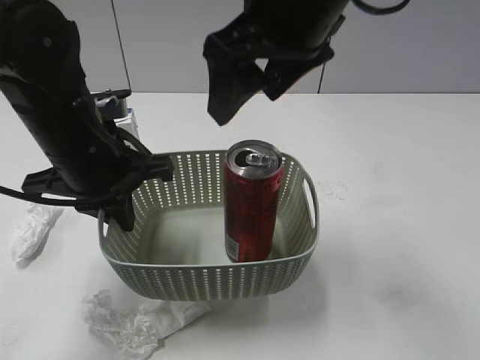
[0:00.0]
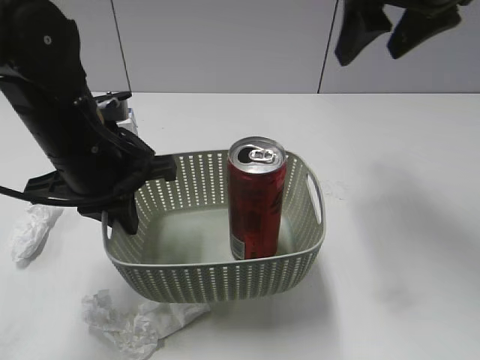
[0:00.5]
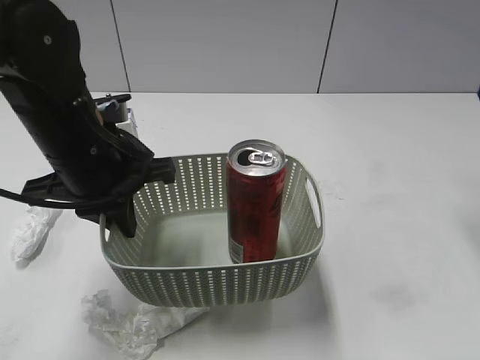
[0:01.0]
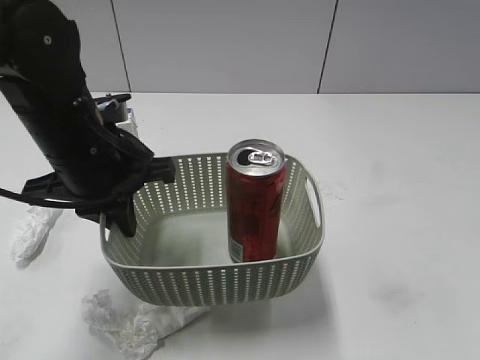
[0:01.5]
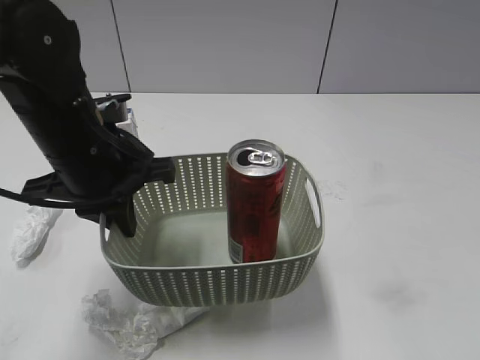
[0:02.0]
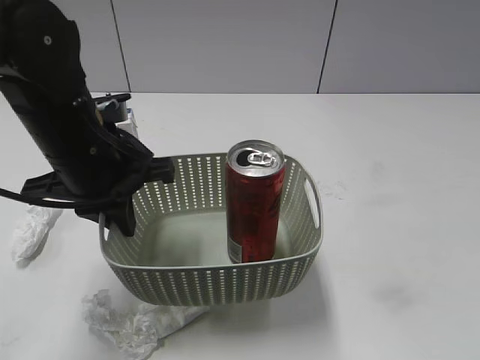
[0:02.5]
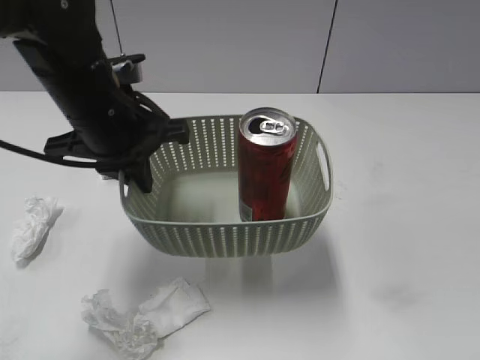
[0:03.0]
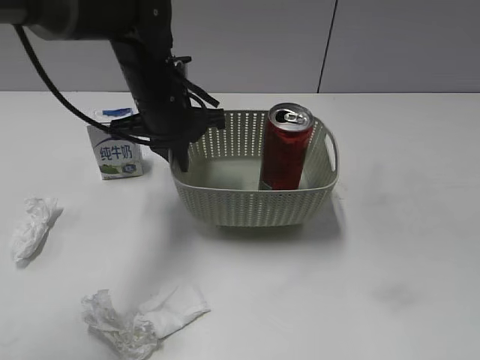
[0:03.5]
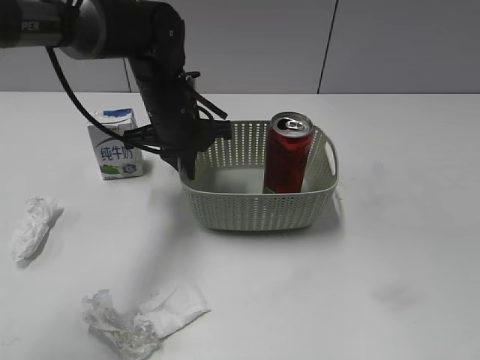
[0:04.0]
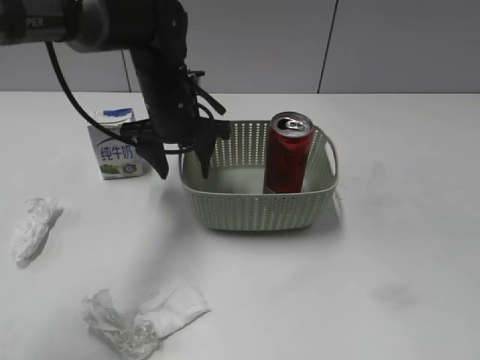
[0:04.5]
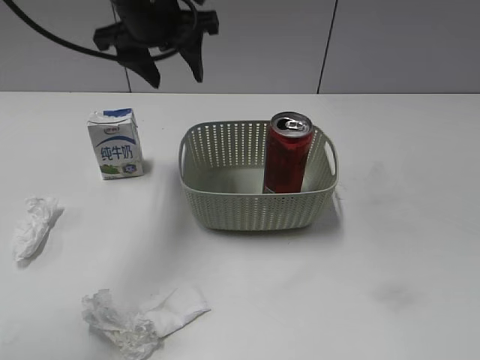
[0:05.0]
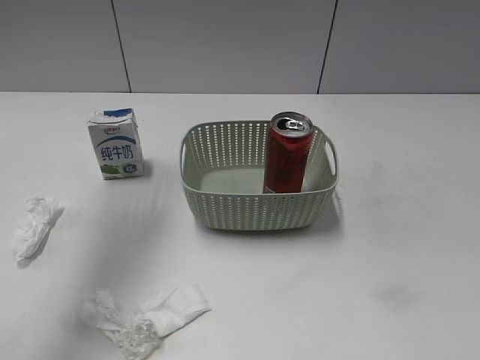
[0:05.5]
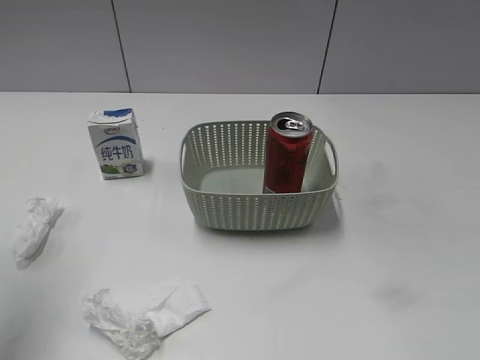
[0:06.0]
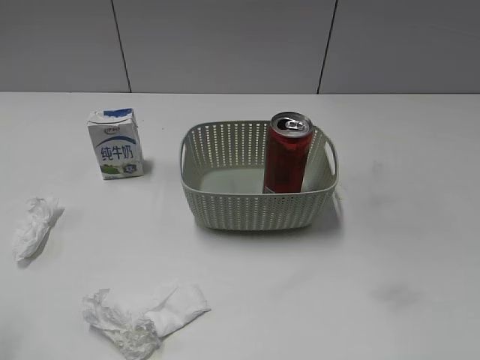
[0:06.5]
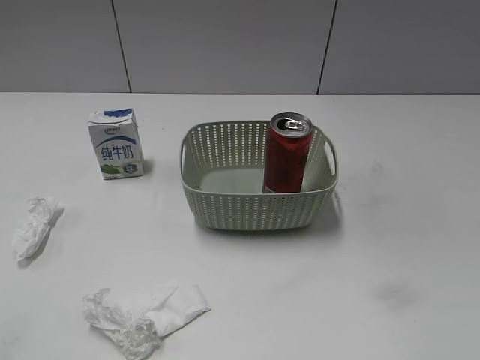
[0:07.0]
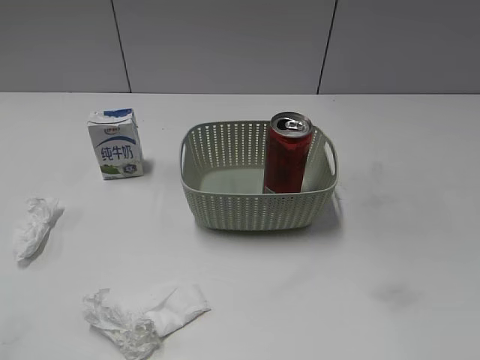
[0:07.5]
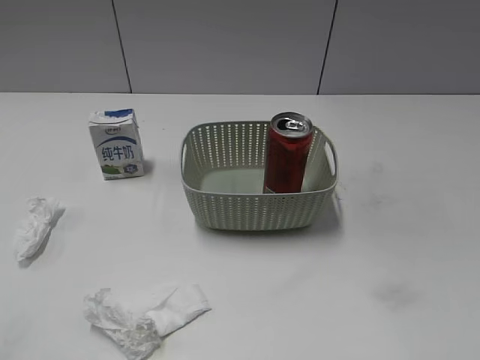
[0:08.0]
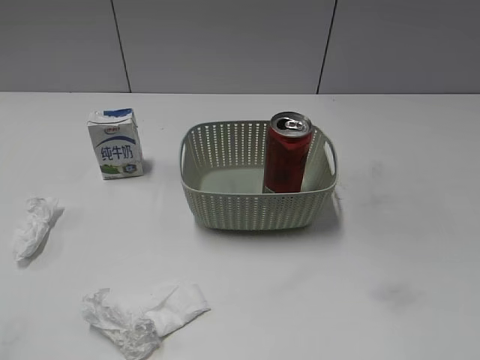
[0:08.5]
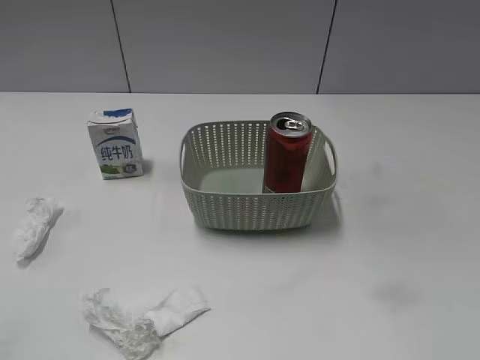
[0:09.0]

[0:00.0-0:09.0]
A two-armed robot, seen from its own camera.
Step, 0:00.0 to 0:04.0: Place the basket on the table with left gripper.
0:00.0 to 0:02.0: The right gripper goes roughly 30 cm to the right and backward.
0:02.0 to 0:04.5: The right gripper heads backward, covering approximately 10 cm. Meanwhile the left gripper moves forward and to the right, about 15 cm, and opens.
0:04.5 to 0:07.0: The left gripper is displaced backward and to the left by about 40 cm.

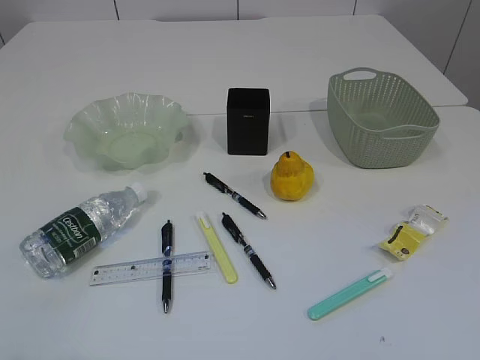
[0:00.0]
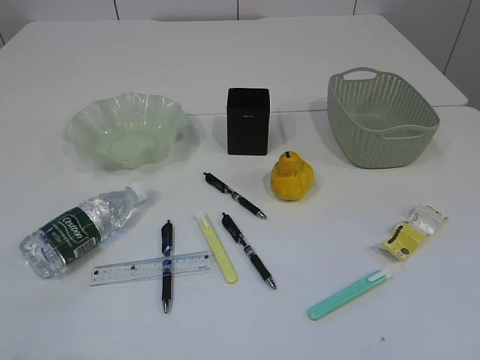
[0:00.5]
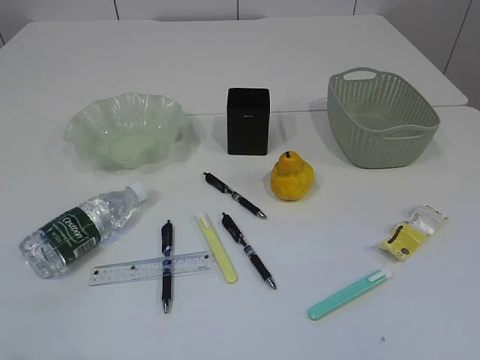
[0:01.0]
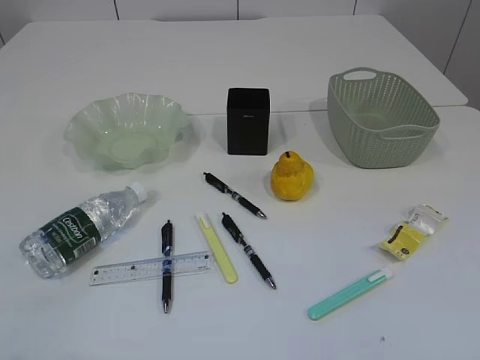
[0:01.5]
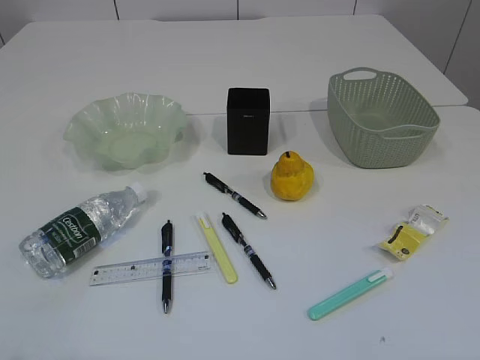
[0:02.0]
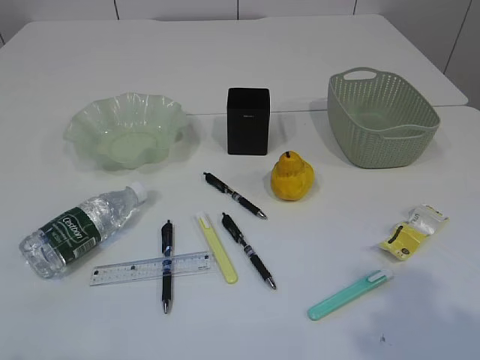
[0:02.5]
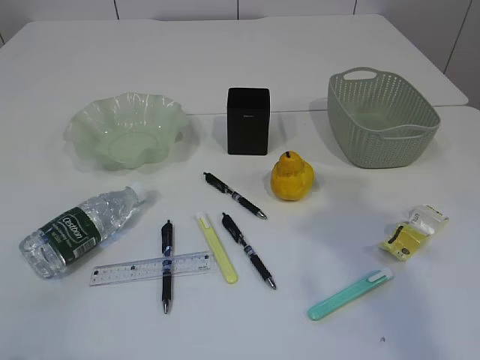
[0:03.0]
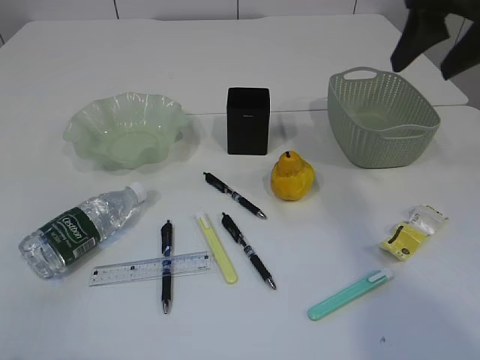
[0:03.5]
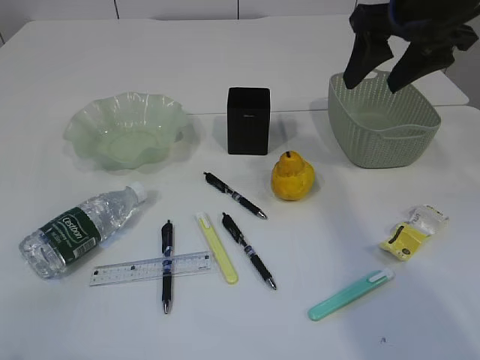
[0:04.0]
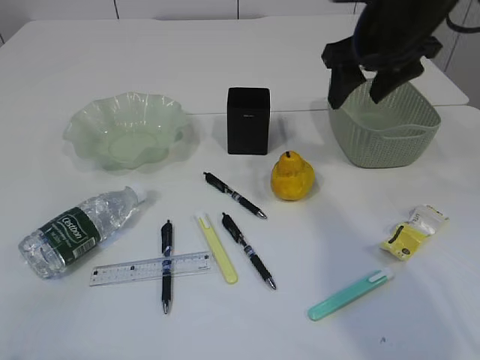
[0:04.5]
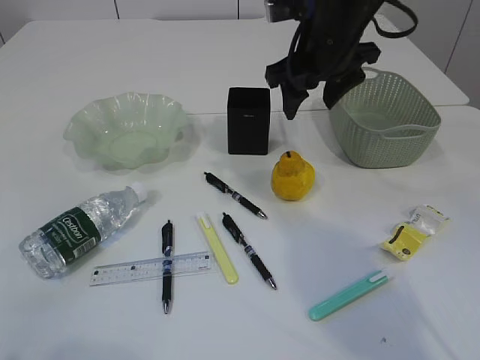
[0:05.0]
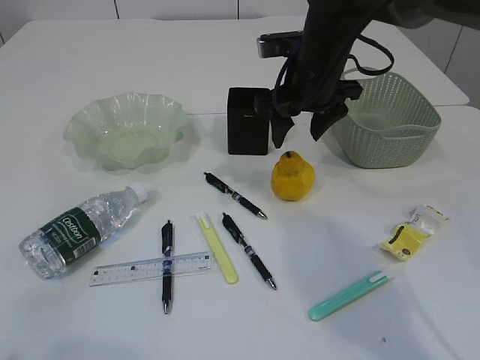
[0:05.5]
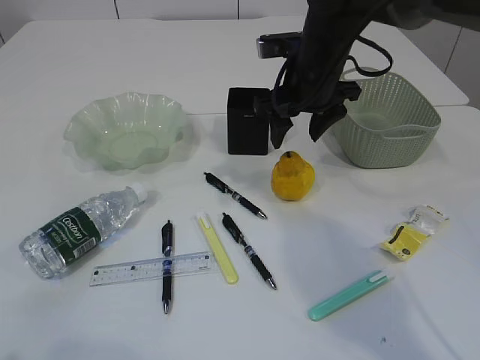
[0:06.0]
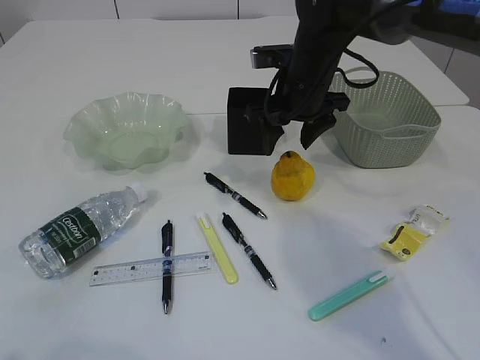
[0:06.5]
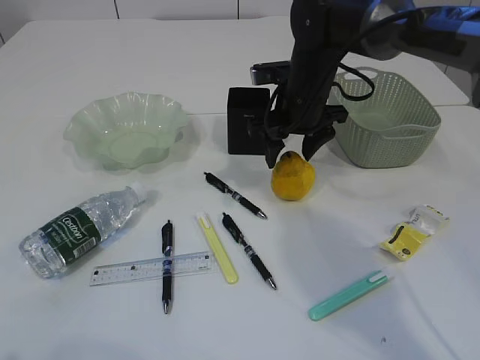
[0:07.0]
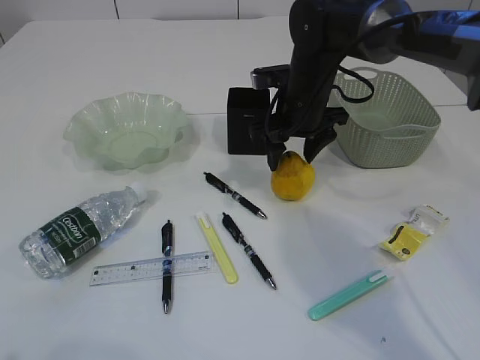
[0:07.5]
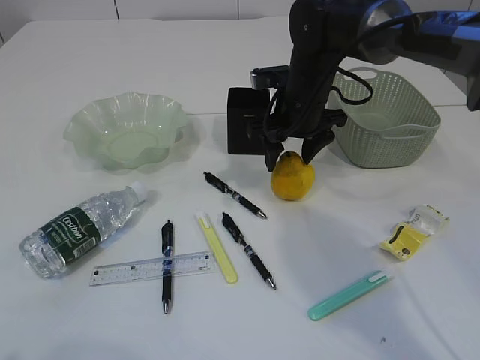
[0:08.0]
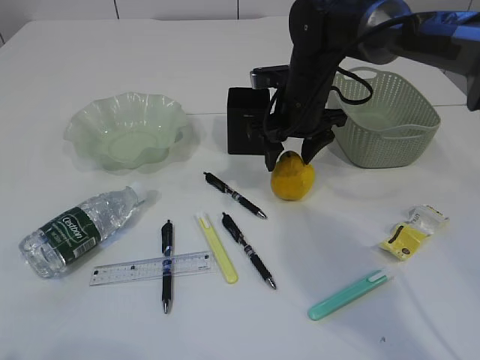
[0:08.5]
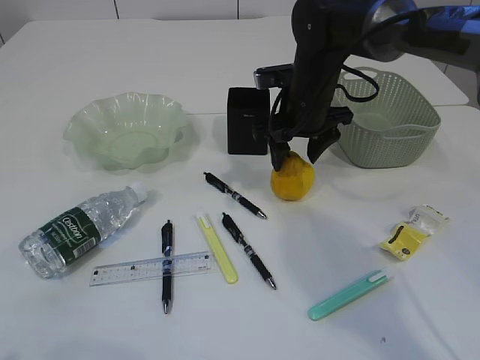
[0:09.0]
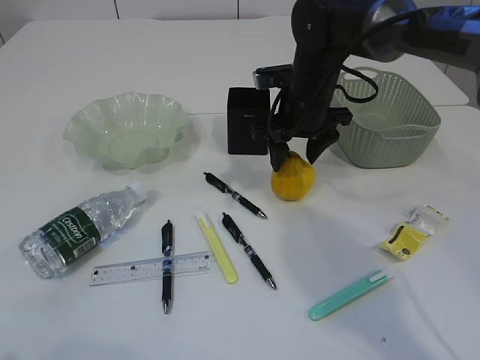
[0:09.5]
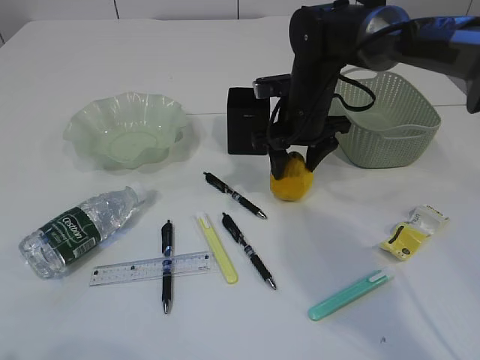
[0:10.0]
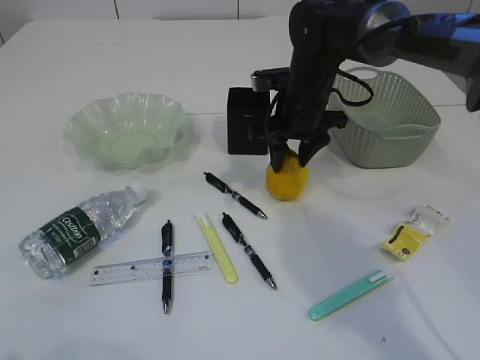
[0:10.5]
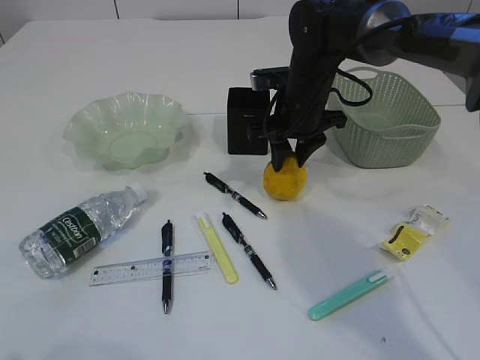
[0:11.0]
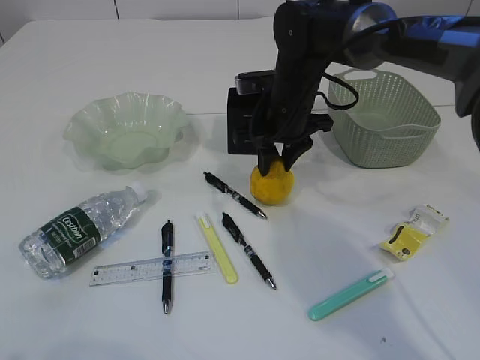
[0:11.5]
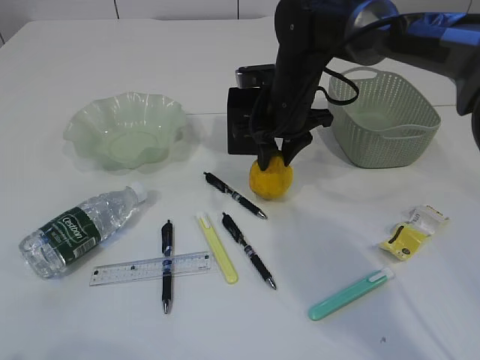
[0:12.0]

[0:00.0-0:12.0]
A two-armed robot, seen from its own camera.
0:02.0 to 0:04.0: The right gripper heads forward, covering approximately 40 cm.
0:04.0 to 0:06.0: The right gripper is displaced downward, to the left and forward by about 15 cm.
0:06.0 to 0:08.0: The grippers move only a little.
0:08.0 to 0:10.0: Both grippers stay about where they are.
0:10.0 to 0:12.0: The right gripper closes.

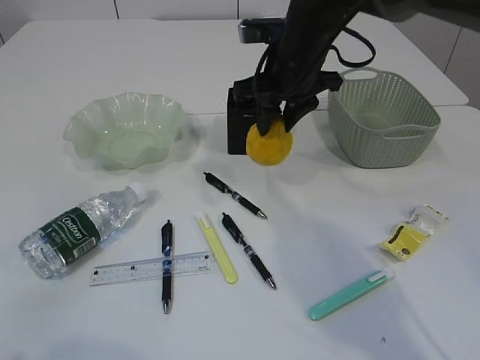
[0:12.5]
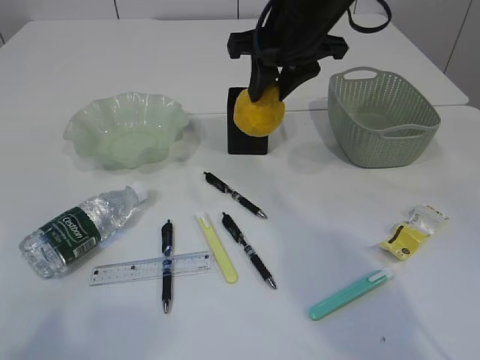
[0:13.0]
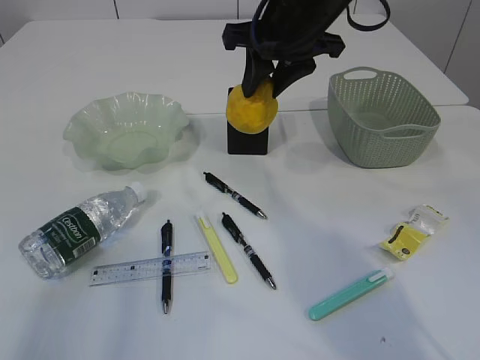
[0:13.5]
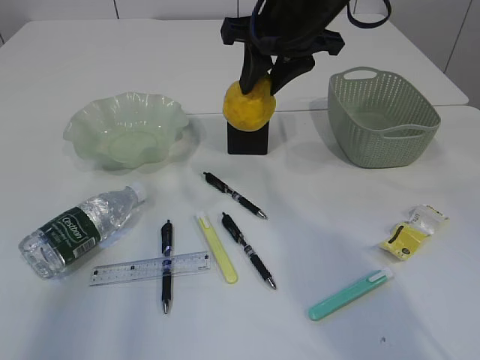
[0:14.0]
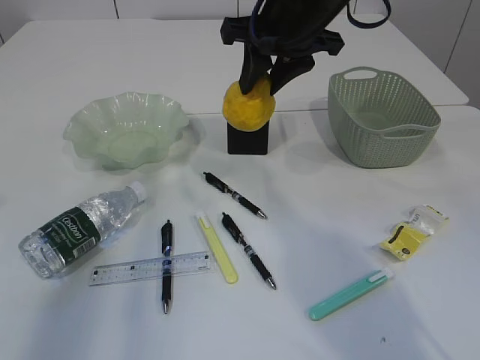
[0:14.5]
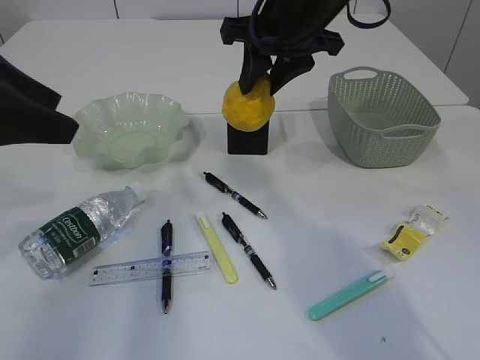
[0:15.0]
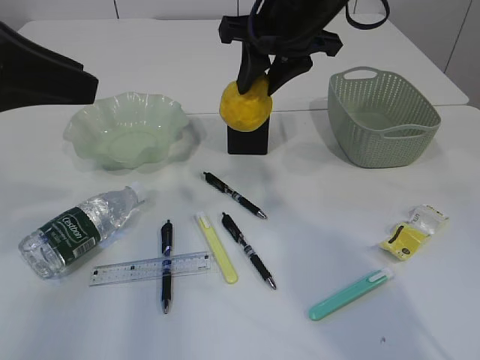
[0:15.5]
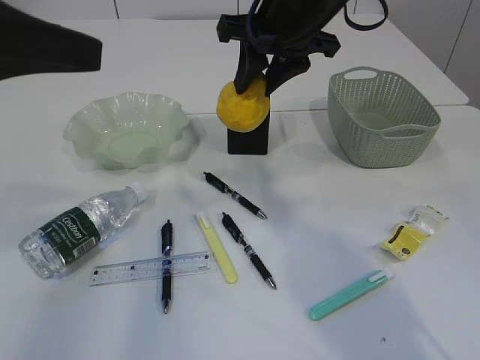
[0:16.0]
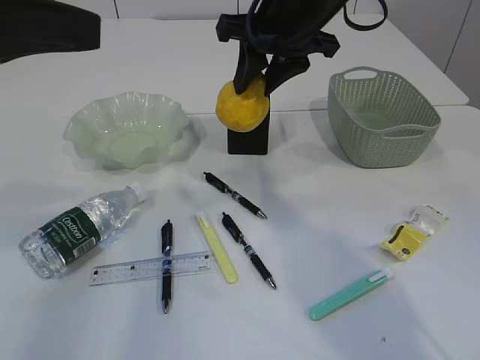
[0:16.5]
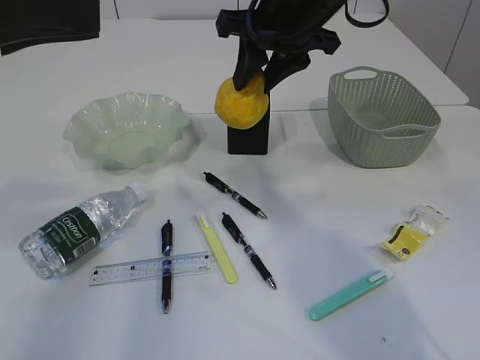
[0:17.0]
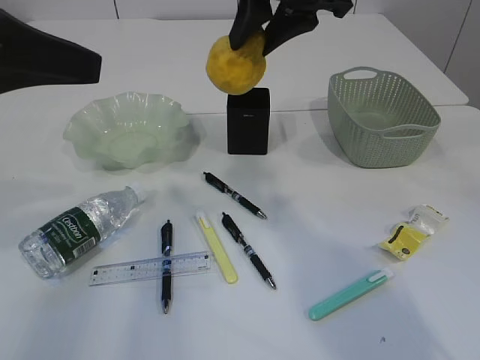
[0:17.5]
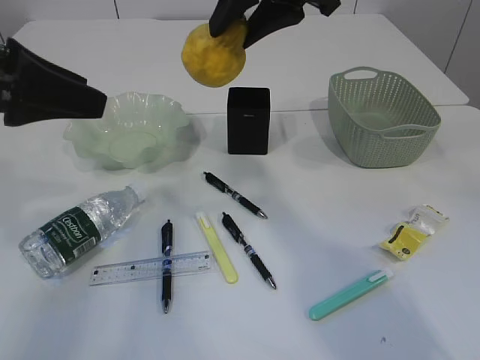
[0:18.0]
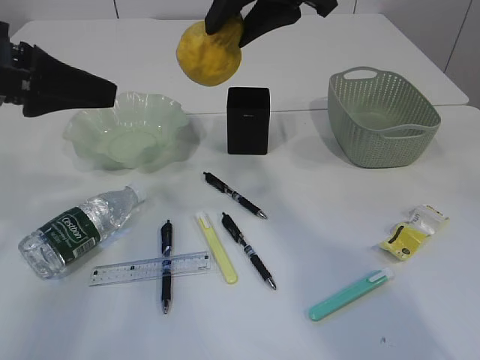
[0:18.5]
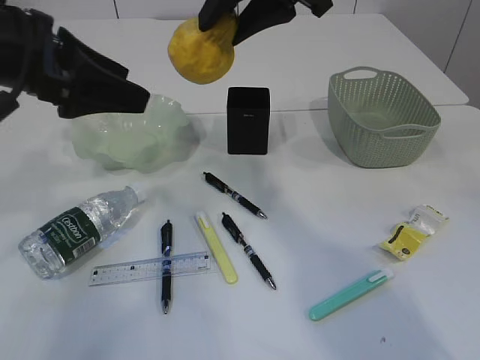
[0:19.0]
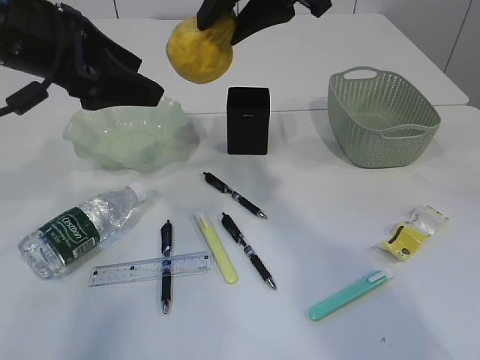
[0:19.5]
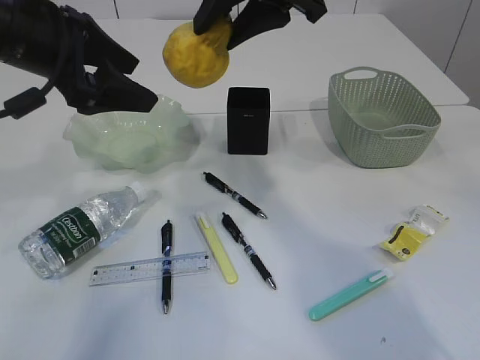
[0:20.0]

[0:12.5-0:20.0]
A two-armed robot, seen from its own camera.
0:12.5 to 0:14.5: The right gripper heads upward, covering roughly 5 cm. Meanwhile the left gripper shifts approximately 25 cm forward, and opens its fingers.
0:14.5 to 0:16.5: The left gripper moves to the right, roughly 5 cm.
0:16.5 to 0:18.0: The right gripper goes some 5 cm upward.
0:18.0 to 0:20.0: The left gripper goes roughly 5 cm forward.
